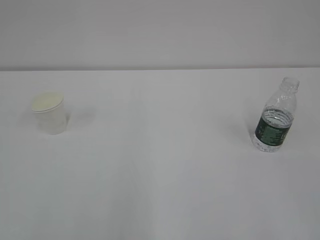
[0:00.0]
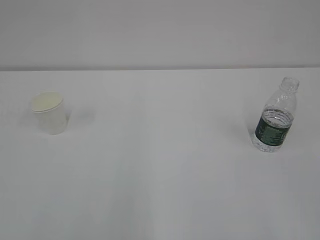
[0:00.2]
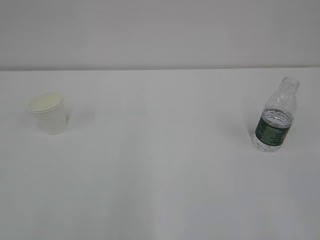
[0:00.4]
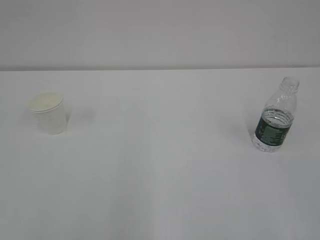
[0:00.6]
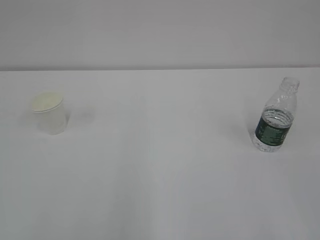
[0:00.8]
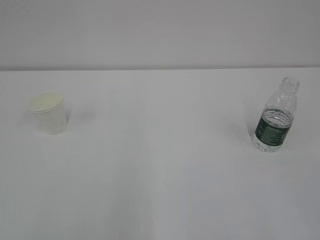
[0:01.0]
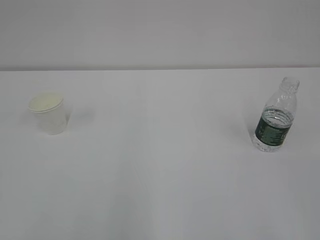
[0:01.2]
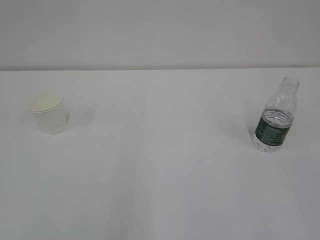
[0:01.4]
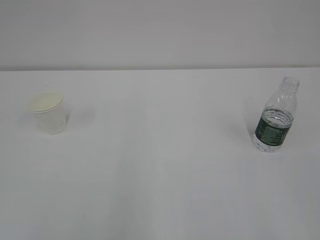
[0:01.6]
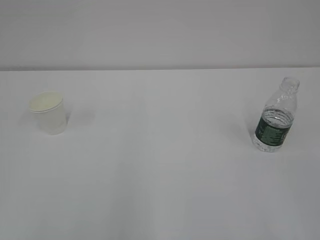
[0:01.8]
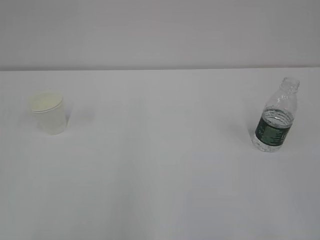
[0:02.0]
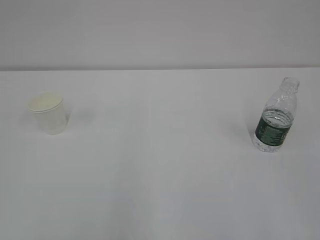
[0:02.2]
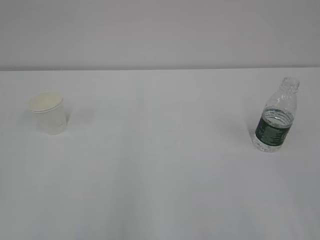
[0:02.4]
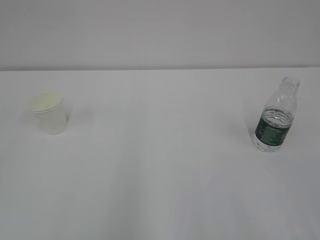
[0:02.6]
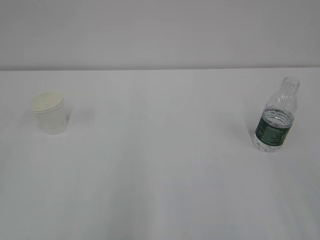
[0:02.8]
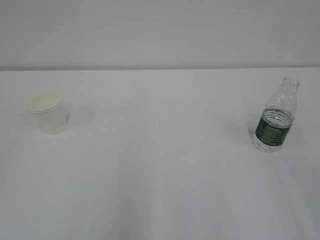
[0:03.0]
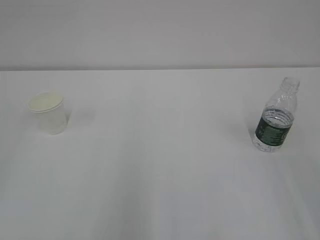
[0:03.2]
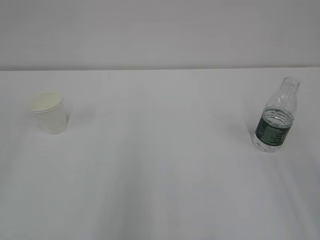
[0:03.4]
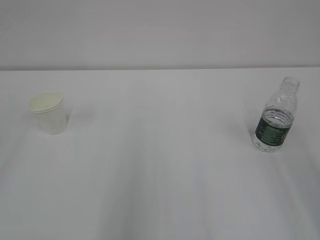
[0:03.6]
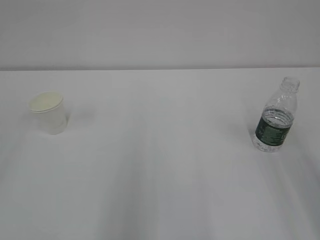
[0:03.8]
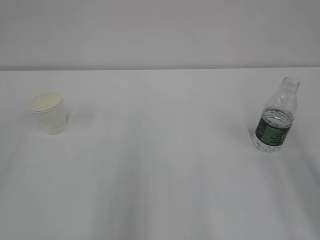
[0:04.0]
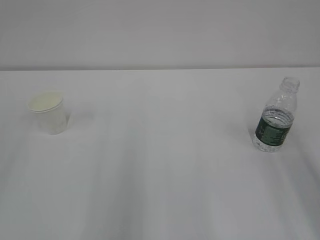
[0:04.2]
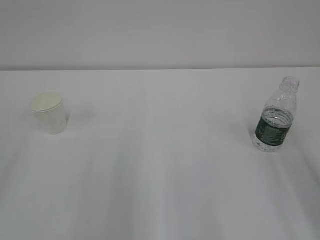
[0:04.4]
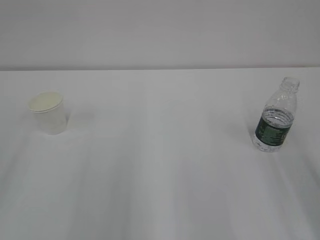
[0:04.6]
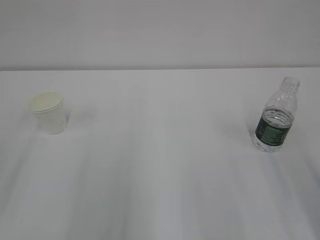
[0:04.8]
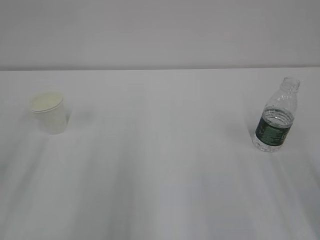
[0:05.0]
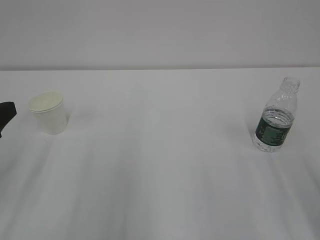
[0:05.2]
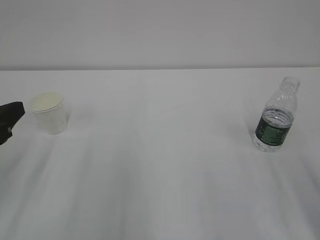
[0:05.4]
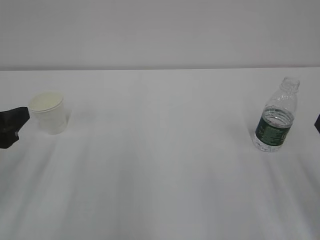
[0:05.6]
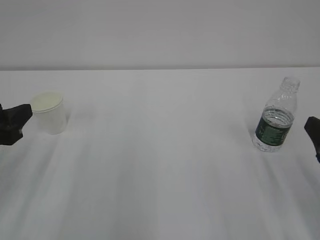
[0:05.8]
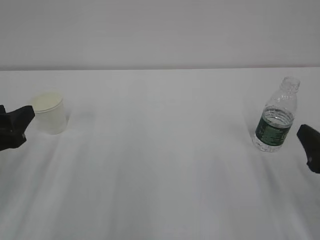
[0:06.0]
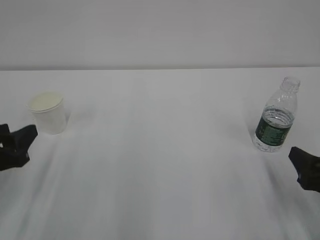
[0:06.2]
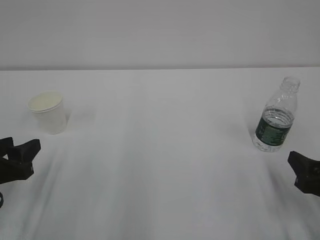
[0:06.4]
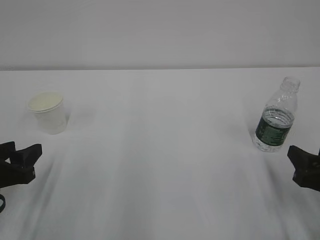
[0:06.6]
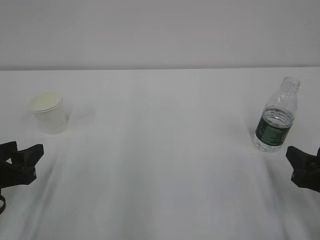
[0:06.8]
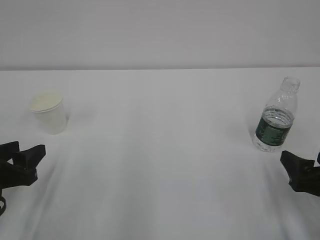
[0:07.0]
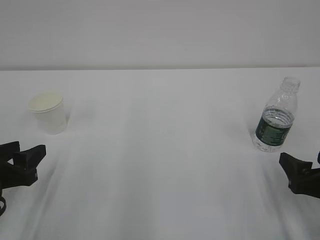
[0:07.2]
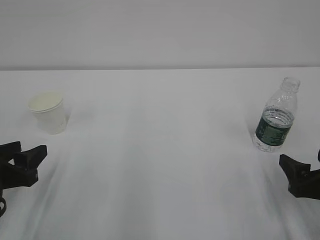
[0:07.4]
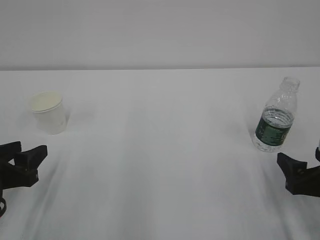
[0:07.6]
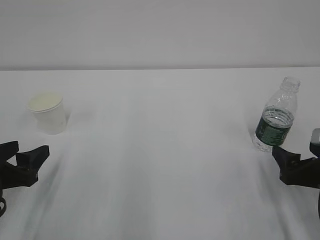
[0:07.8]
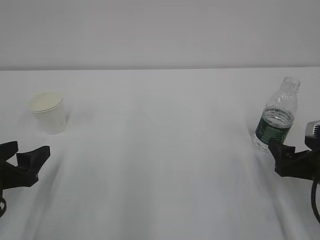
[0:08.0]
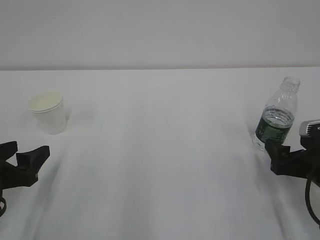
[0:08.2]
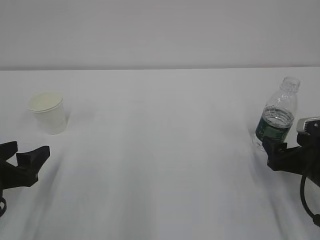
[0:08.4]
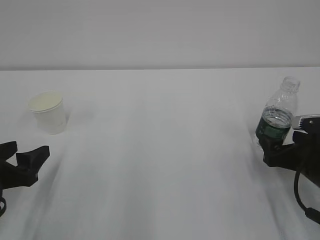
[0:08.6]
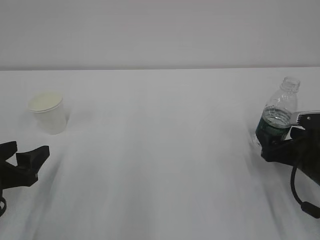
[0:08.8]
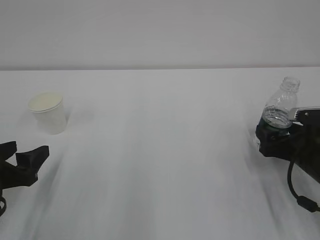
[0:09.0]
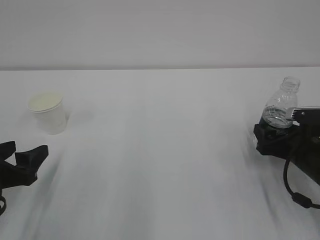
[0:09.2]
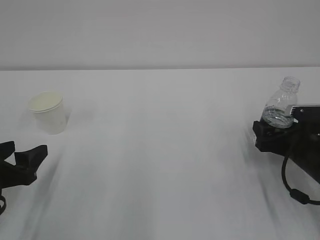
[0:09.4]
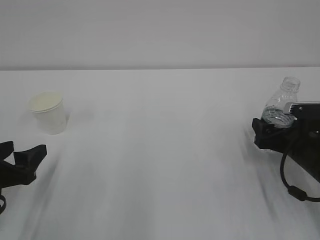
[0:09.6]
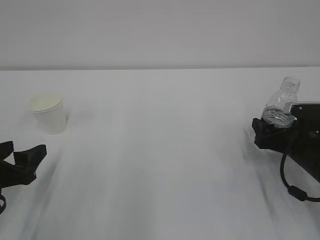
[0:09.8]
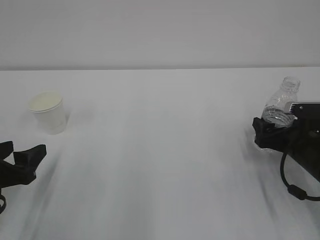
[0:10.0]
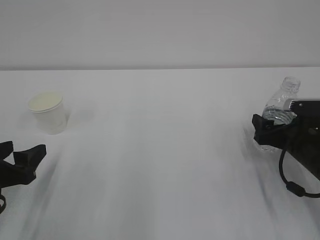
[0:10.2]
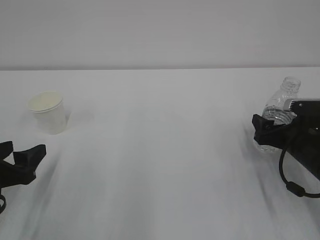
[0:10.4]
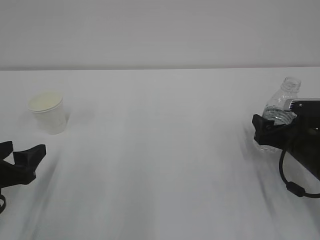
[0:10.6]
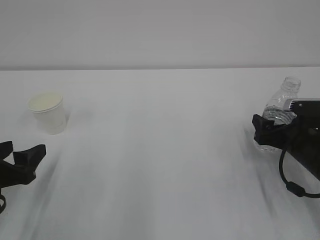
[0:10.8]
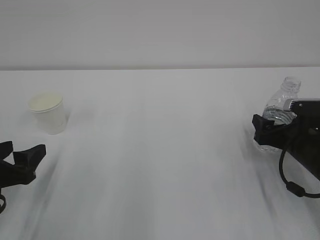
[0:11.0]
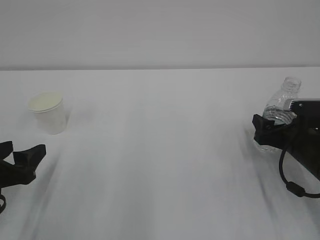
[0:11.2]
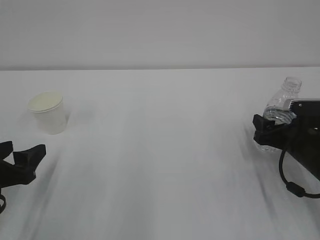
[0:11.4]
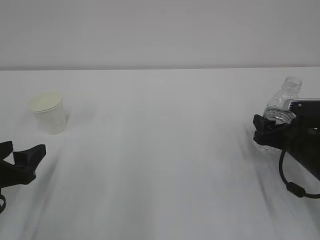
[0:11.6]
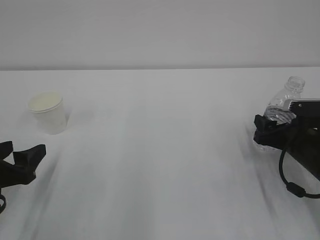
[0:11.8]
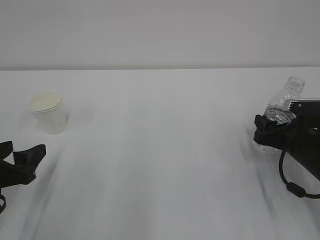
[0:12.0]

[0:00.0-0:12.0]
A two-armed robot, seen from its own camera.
0:04.4 to 0:06.0: The right gripper heads downward, covering approximately 15 cm. The left gripper heads downward and forward, covering about 15 cm.
0:06.0 to 0:07.6: The left gripper shifts roughly 5 cm downward, while the right gripper changes place by about 5 cm.
0:07.6 to 0:09.0: The right gripper is displaced forward by some 10 cm.
0:09.0 to 0:10.4: The grippers stay close to where they were, moving slightly.

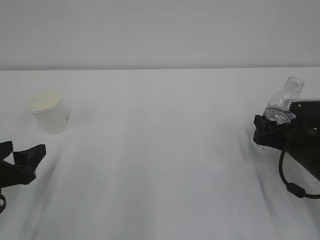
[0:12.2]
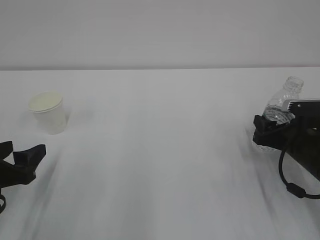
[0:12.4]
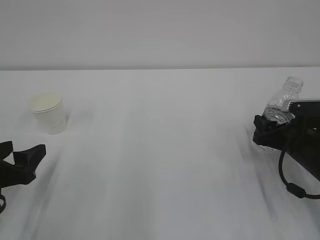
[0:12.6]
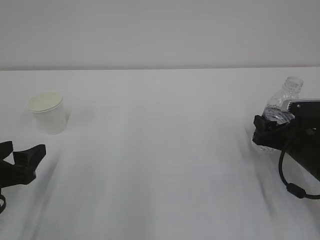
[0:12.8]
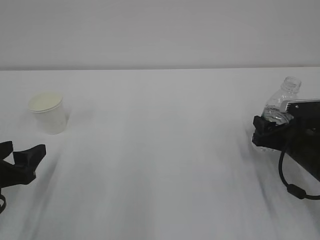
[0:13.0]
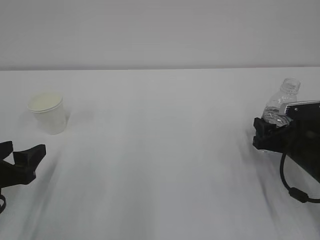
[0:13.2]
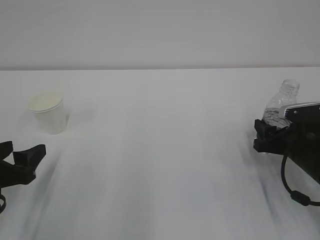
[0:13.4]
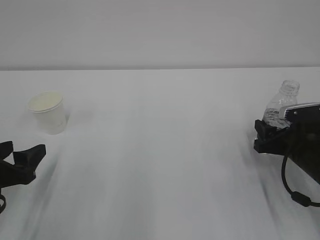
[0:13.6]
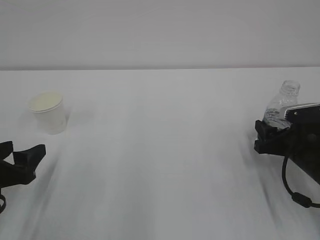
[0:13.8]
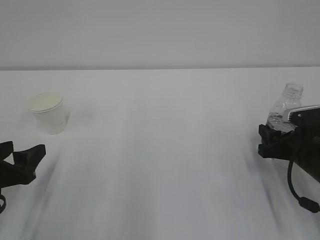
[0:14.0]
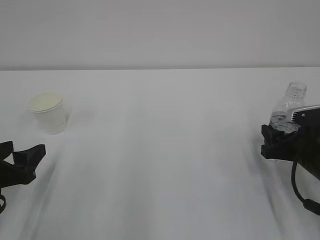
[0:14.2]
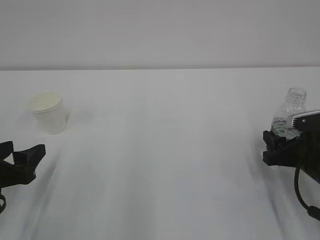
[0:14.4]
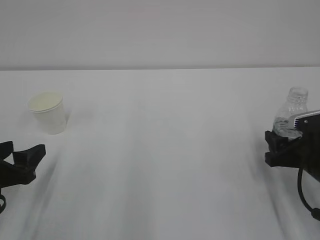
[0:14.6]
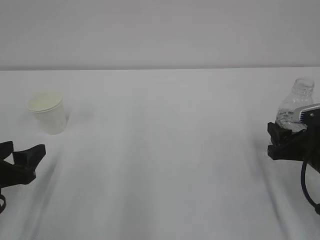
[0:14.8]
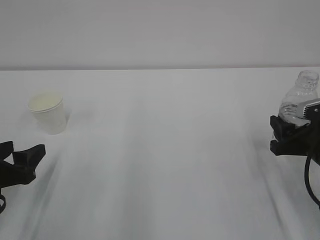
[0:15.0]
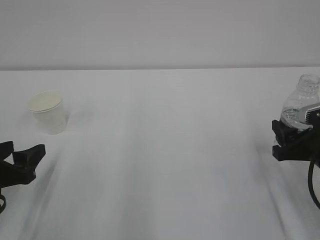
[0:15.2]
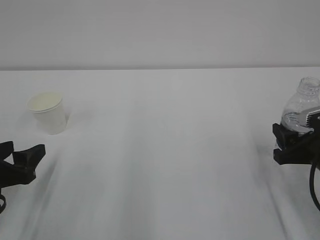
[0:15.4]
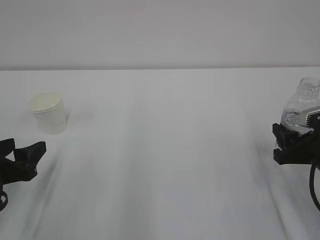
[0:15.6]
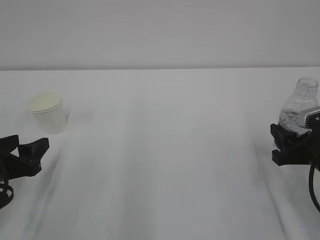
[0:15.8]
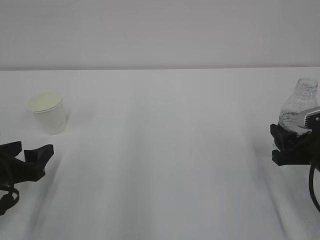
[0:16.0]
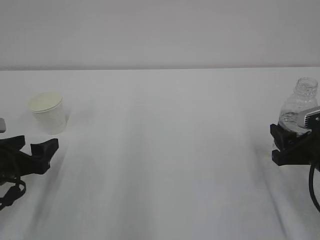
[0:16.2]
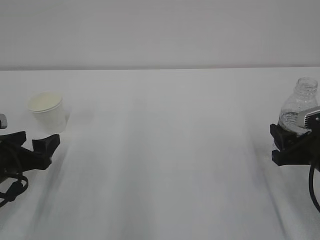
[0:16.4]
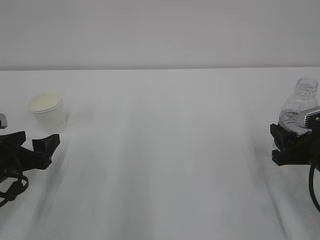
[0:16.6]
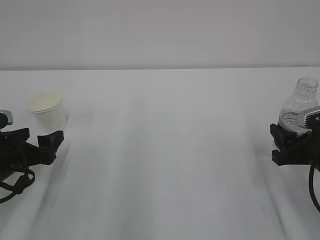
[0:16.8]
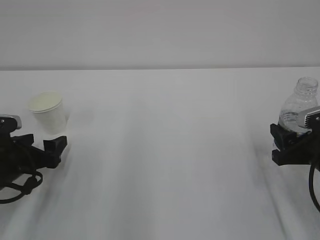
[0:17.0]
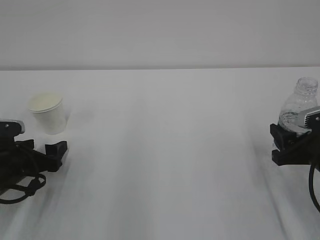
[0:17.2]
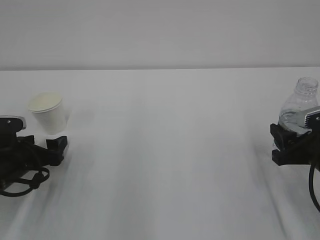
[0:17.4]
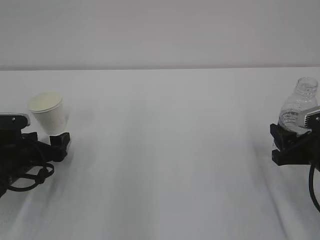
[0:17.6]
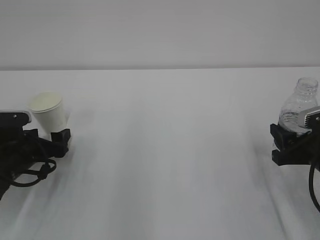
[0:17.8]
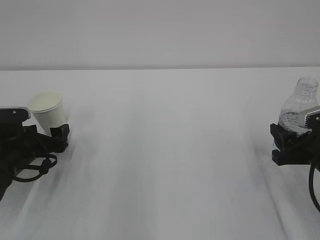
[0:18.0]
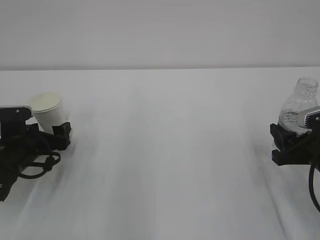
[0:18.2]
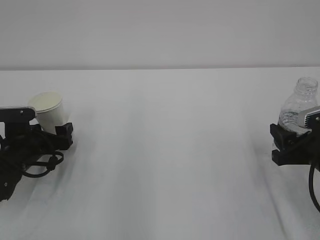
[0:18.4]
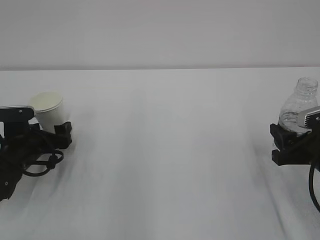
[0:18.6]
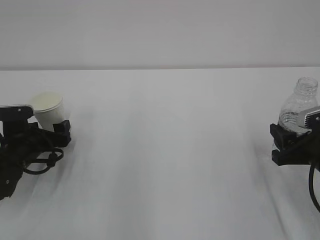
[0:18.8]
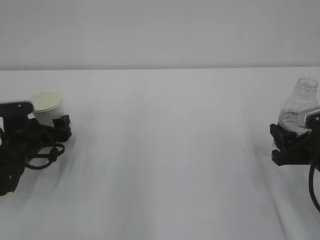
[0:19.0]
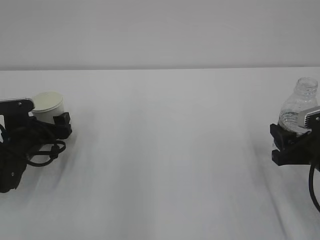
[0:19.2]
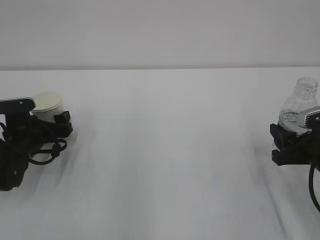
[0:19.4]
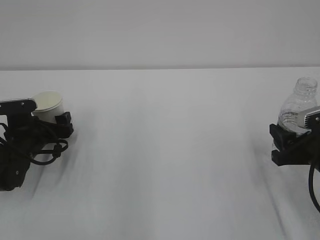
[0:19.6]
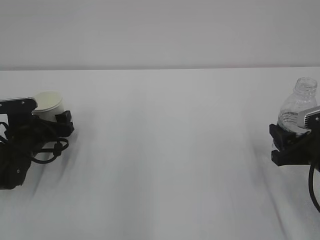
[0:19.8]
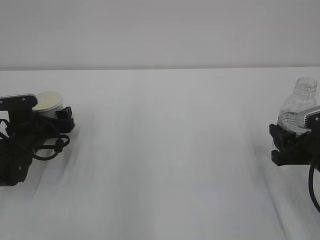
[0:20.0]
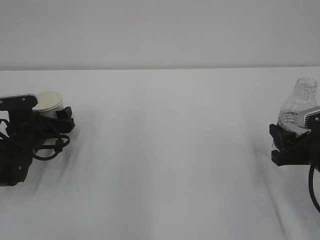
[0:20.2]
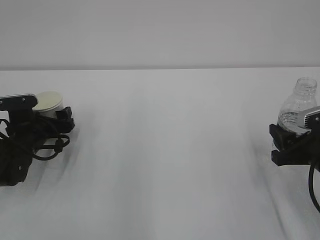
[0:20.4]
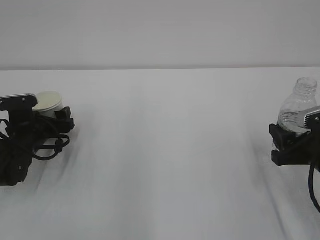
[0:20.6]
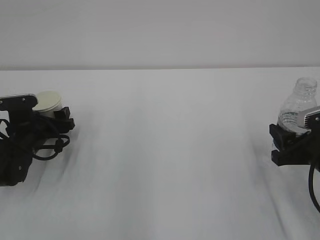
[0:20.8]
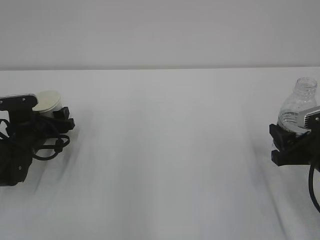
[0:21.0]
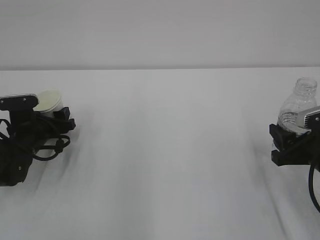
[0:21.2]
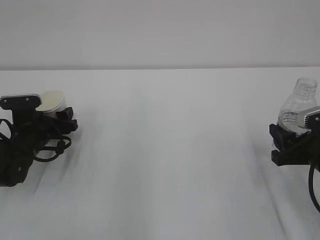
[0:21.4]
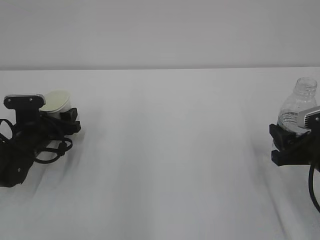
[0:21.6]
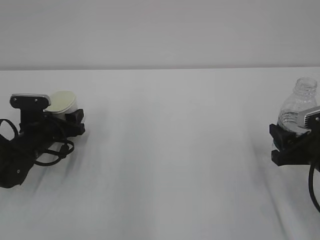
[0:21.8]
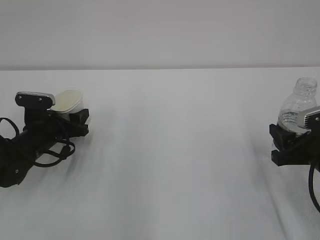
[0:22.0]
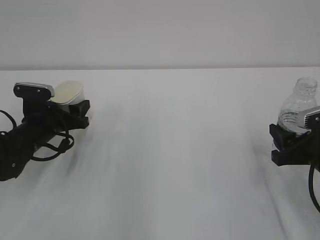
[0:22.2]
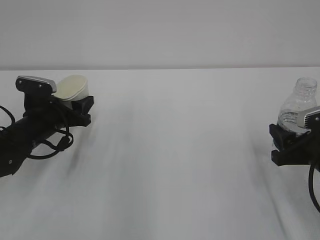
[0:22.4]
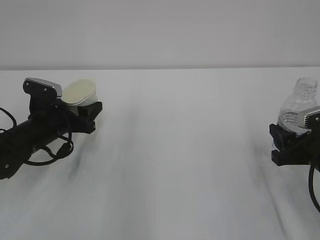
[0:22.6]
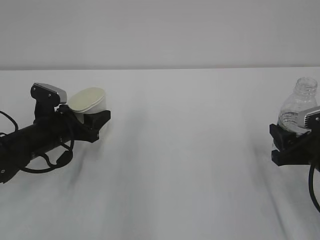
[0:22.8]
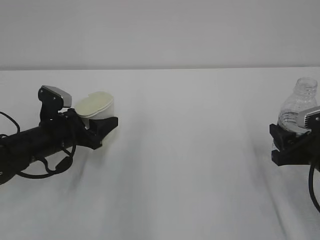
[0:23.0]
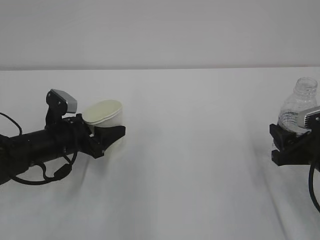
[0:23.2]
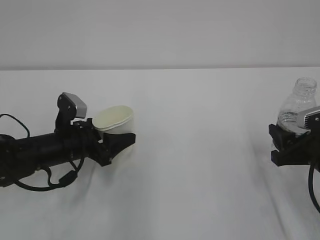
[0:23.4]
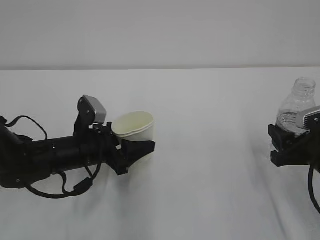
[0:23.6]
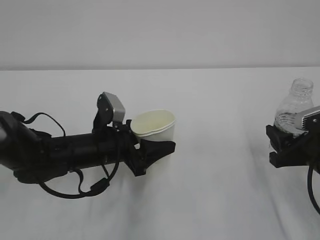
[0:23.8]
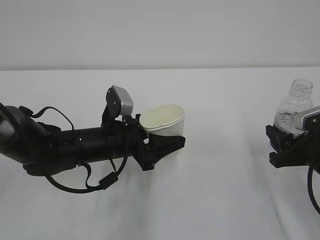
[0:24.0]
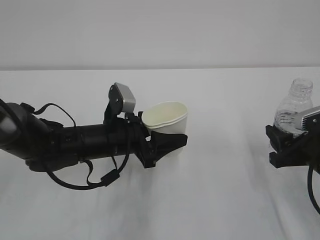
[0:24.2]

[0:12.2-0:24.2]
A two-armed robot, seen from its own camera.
0:12.2 to 0:13.8: There are only small adjustments of the grippers.
0:13.8 to 0:15.2: The right gripper ends up some 5 cm from where it was.
0:15.2 to 0:16.6: The left gripper opens its fingers.
0:16.6 to 0:18.2: The left gripper travels forward by approximately 5 cm.
0:18.2 to 0:19.8: The grippers move only a little.
0:19.8 to 0:21.2: The left gripper closes.
0:21.2 to 0:22.6: The left gripper moves about 5 cm.
0:22.6 to 0:24.2: The left gripper is displaced to the right by about 15 cm.
